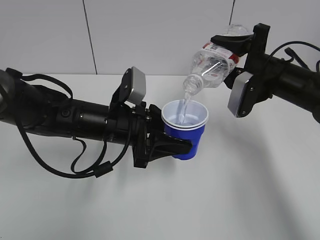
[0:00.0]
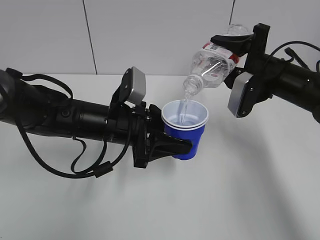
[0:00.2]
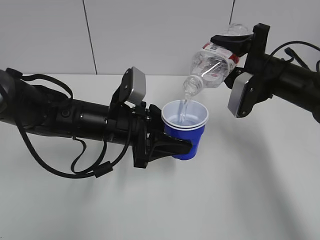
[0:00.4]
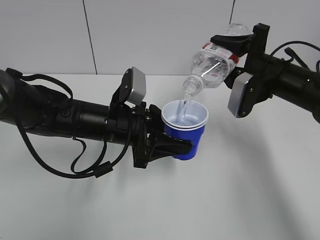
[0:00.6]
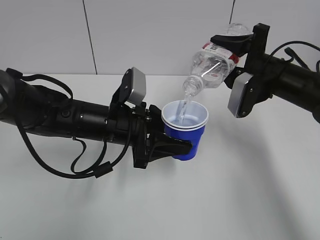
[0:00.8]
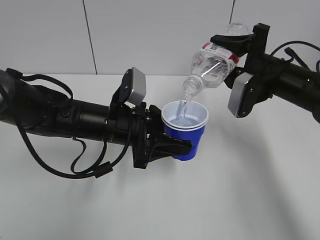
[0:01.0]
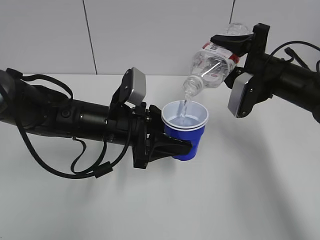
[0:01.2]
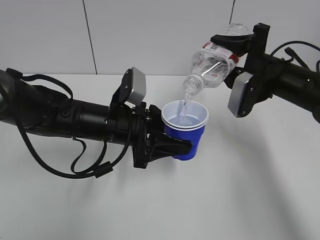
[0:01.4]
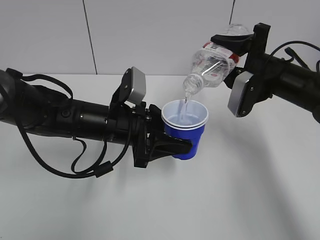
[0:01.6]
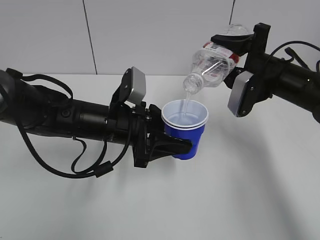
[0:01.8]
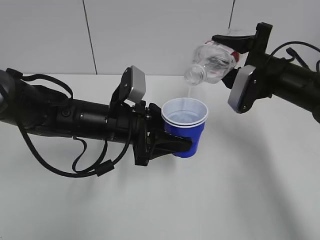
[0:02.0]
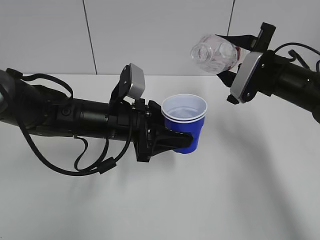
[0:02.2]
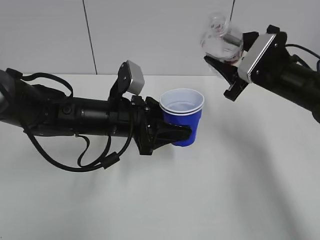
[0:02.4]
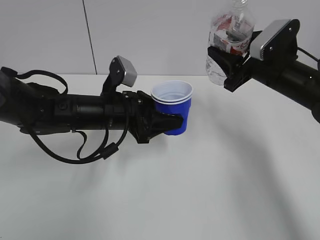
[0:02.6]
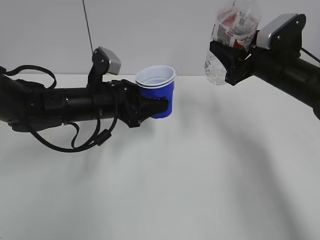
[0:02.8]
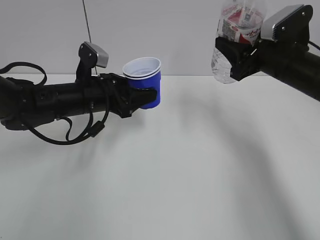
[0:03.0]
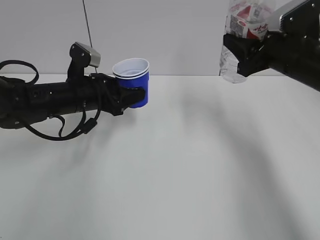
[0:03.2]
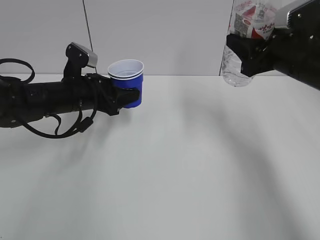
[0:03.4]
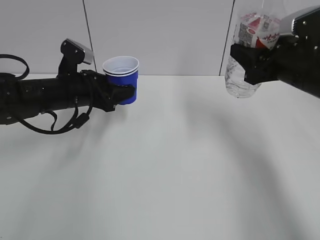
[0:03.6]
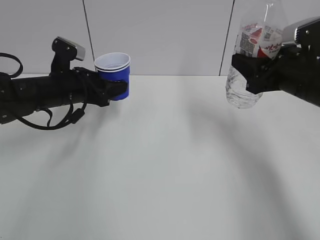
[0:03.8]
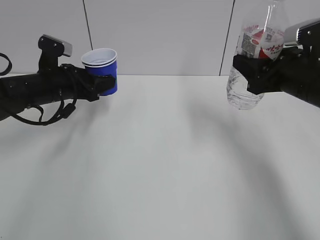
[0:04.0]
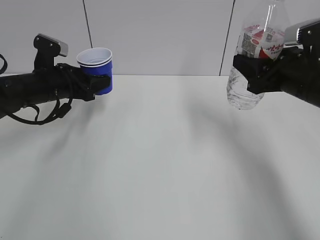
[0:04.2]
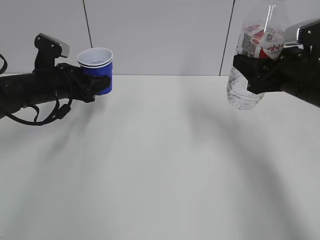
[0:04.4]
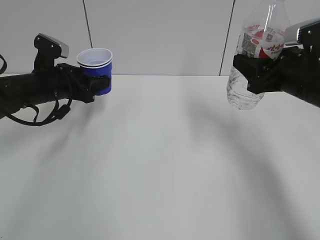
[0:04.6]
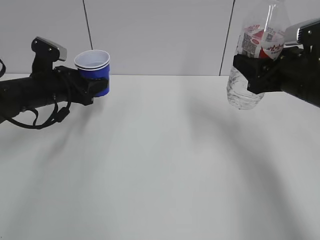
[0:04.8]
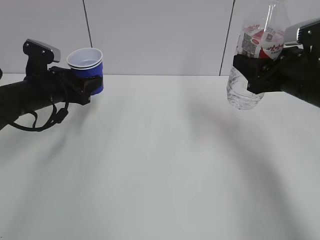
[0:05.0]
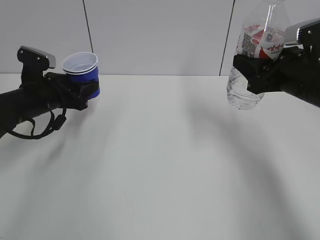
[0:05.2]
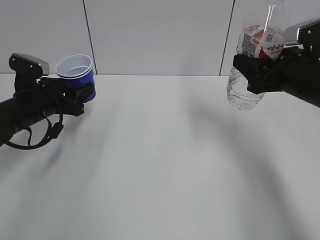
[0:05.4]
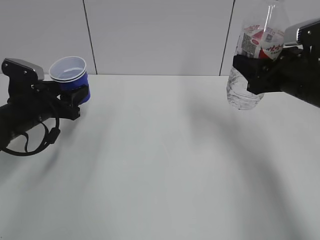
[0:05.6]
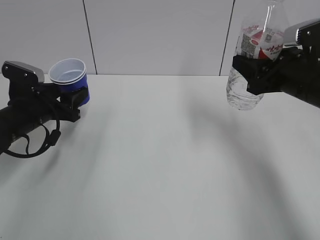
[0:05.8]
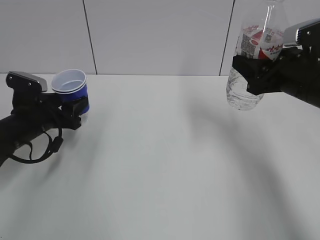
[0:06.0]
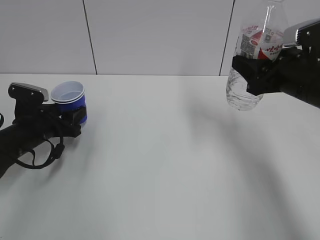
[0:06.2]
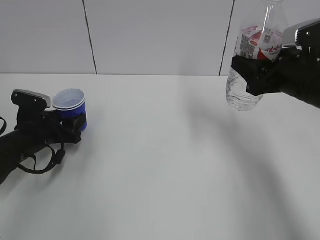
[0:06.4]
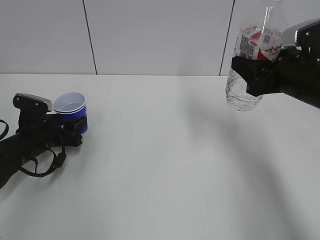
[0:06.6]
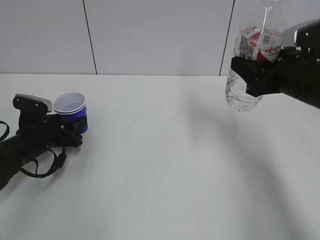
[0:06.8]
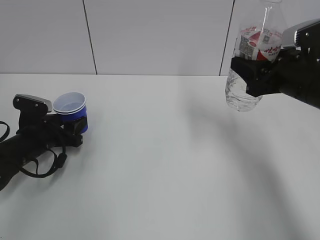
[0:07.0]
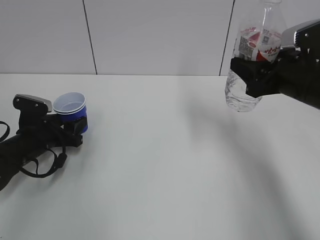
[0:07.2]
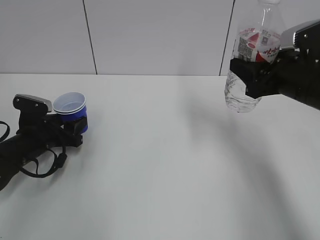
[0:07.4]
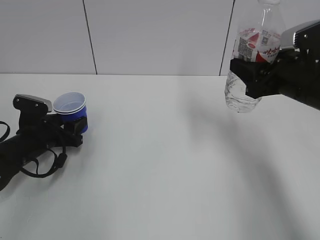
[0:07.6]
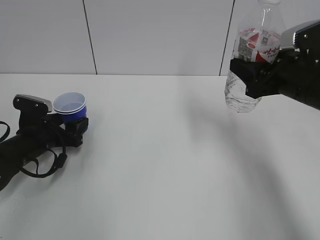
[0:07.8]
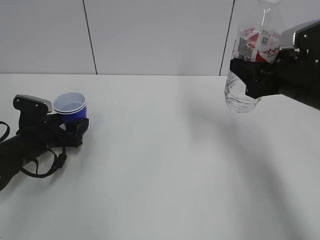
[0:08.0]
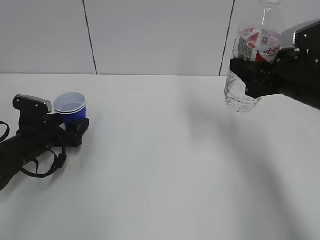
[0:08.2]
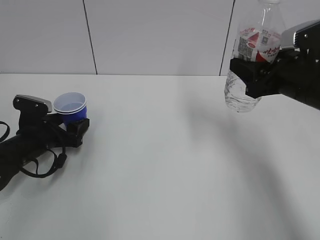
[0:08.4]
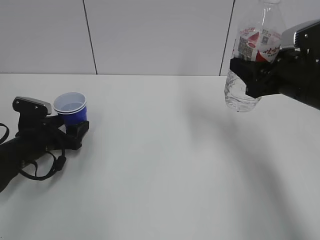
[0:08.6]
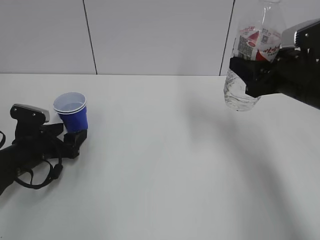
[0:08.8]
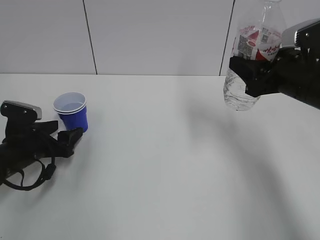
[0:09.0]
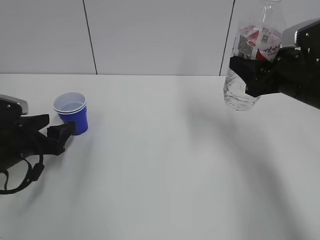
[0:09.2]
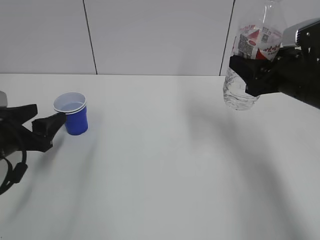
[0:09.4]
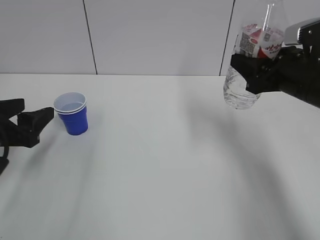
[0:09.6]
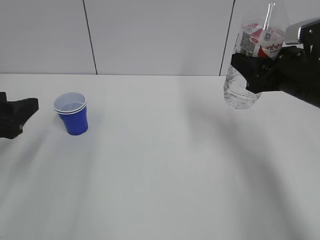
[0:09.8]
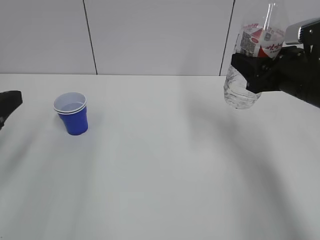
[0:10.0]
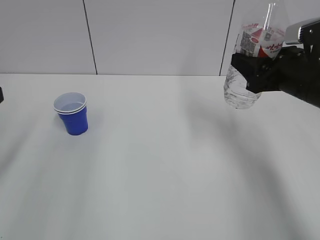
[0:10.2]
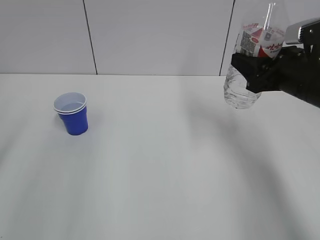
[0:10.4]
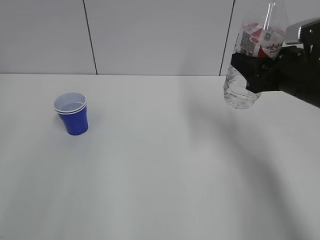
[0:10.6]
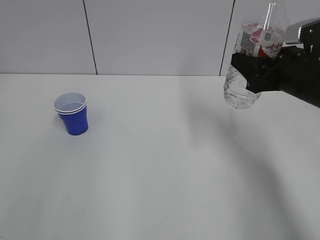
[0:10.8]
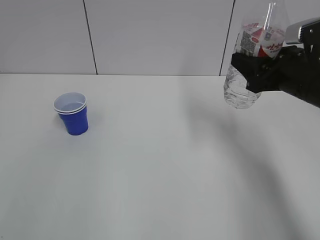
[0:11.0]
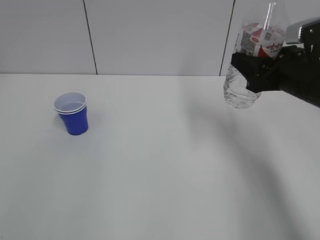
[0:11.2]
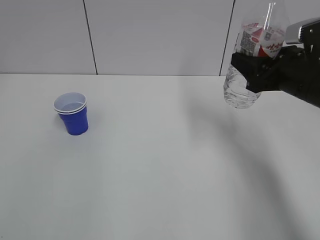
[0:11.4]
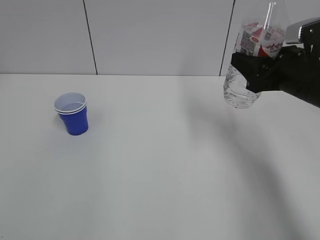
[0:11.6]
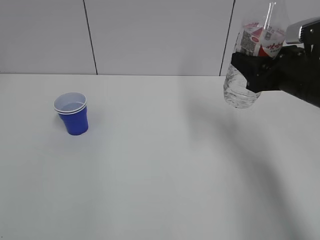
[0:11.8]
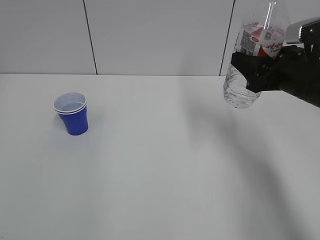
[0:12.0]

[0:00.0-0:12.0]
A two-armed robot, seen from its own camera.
Step, 0:00.0 to 0:02.0: Fill water with the left hand.
Step, 0:02.2 to 0:02.6: Collect water with the right hand.
Step, 0:02.8 to 0:08.2: Place the paper cup with the left hand.
0:00.0 to 0:01.6: Both grippers stay about where they are.
0:01.6 to 0:03.0: The left gripper is displaced forward and to the left by approximately 10 cm.
0:03.0 to 0:04.4: The left gripper travels to the left by some 10 cm. The right gripper moves backward, approximately 5 cm.
0:04.4 to 0:06.0: The left gripper shifts some 5 cm downward.
0:06.0 to 0:07.6: The left gripper moves downward, some 5 cm.
0:07.6 to 0:09.0: The left gripper opens up.
0:09.0 to 0:10.4: The left gripper is displaced upward and backward by approximately 25 cm.

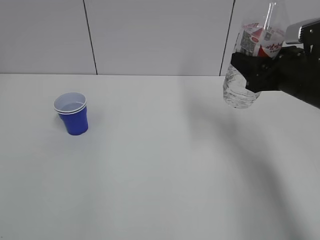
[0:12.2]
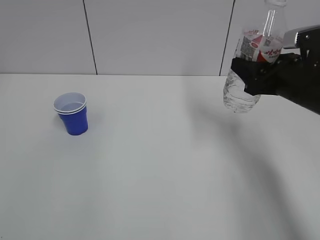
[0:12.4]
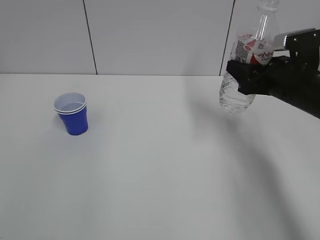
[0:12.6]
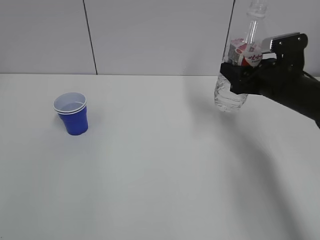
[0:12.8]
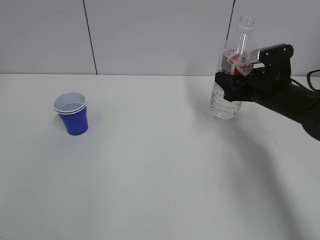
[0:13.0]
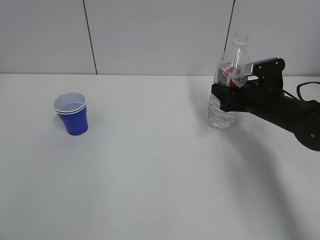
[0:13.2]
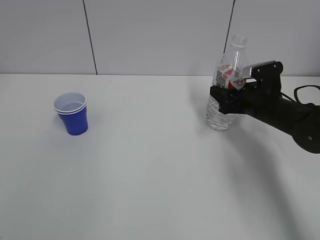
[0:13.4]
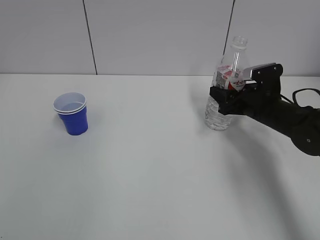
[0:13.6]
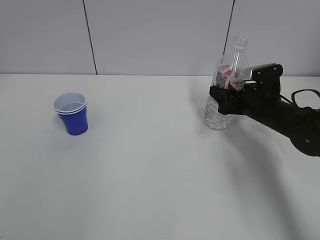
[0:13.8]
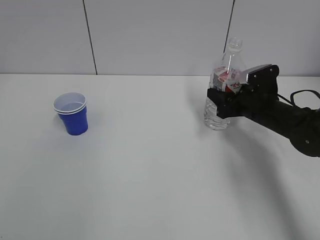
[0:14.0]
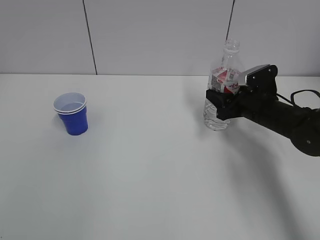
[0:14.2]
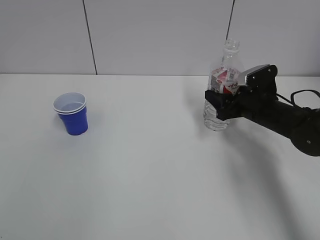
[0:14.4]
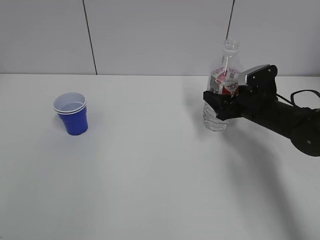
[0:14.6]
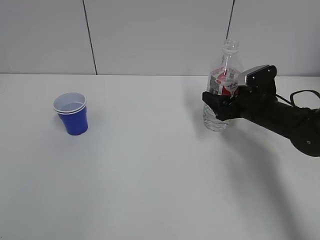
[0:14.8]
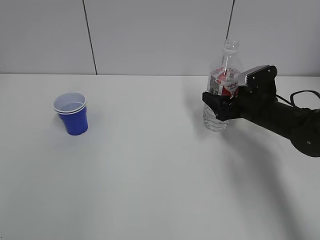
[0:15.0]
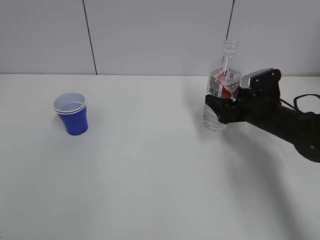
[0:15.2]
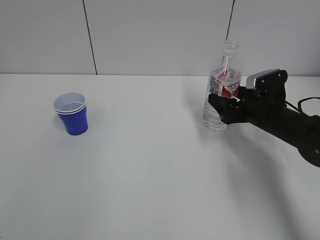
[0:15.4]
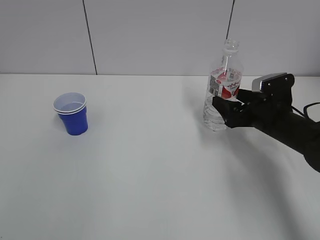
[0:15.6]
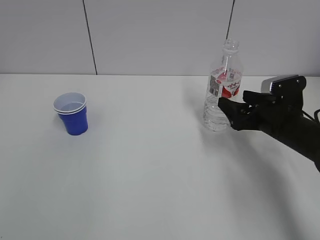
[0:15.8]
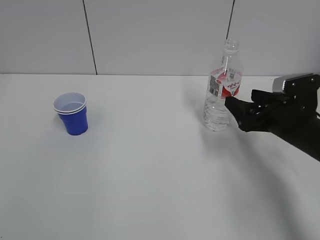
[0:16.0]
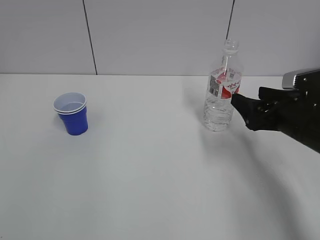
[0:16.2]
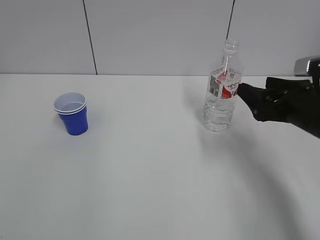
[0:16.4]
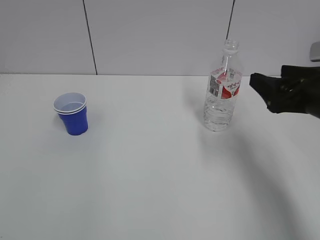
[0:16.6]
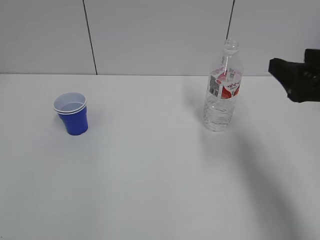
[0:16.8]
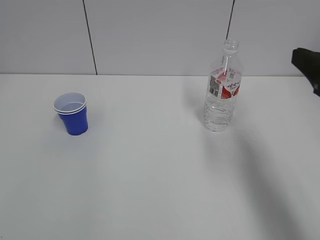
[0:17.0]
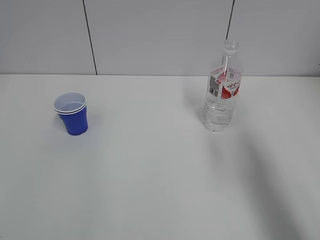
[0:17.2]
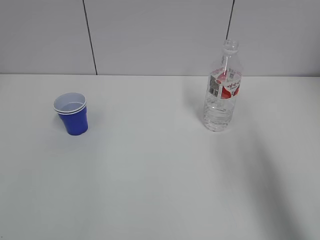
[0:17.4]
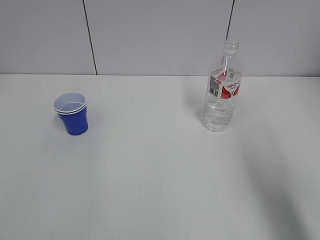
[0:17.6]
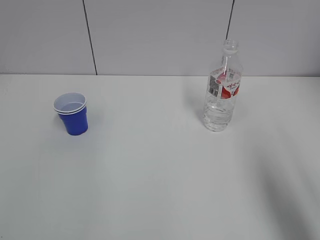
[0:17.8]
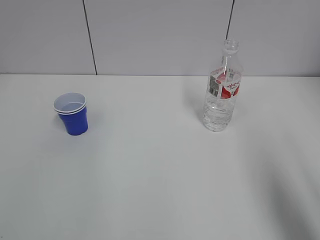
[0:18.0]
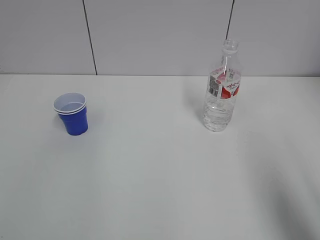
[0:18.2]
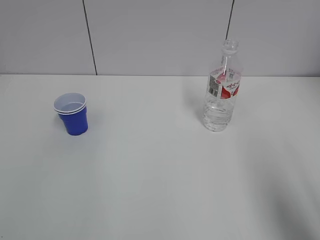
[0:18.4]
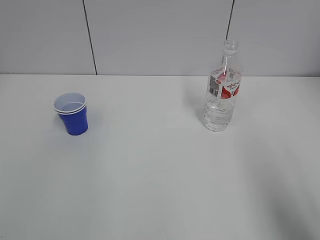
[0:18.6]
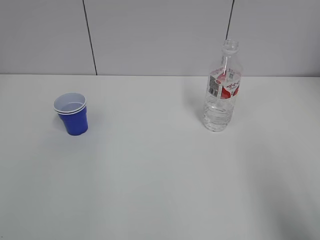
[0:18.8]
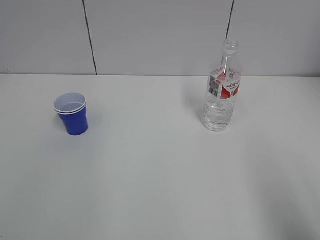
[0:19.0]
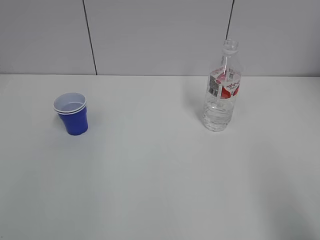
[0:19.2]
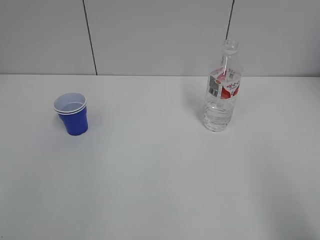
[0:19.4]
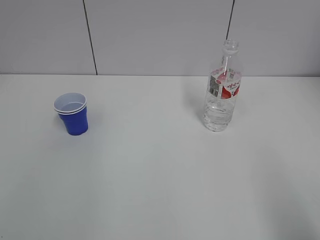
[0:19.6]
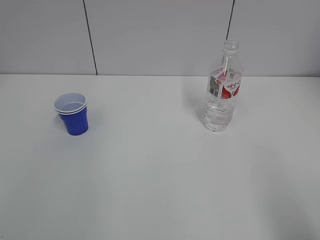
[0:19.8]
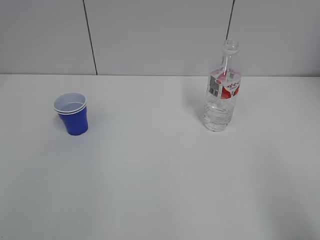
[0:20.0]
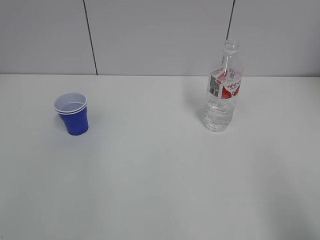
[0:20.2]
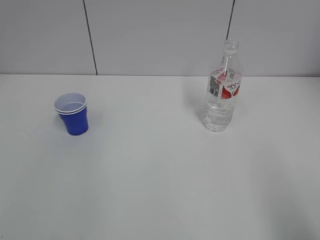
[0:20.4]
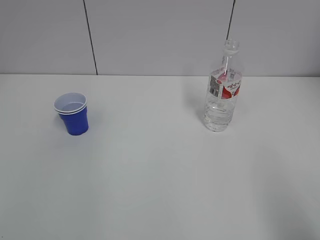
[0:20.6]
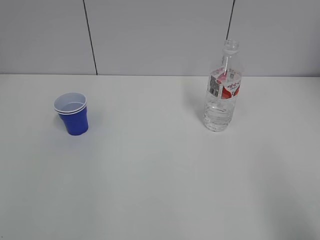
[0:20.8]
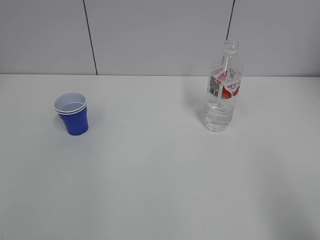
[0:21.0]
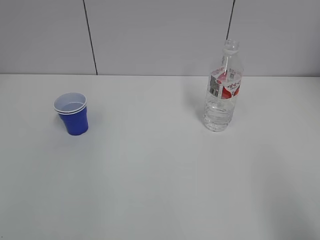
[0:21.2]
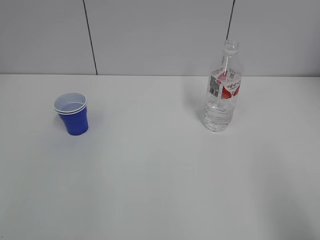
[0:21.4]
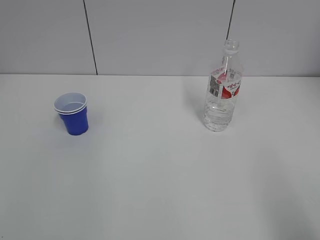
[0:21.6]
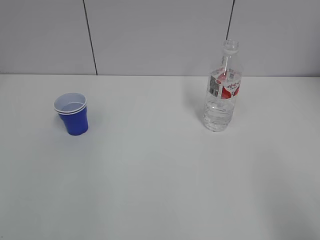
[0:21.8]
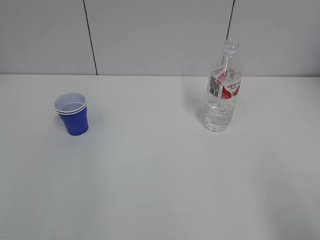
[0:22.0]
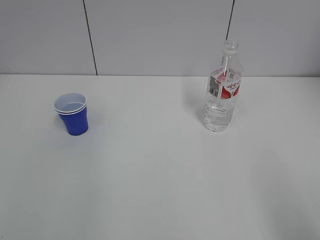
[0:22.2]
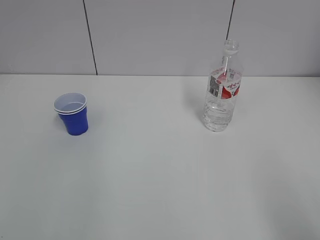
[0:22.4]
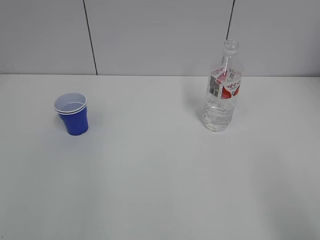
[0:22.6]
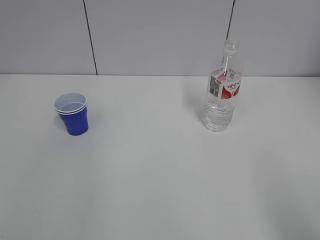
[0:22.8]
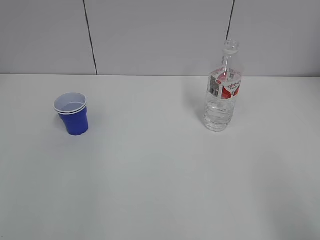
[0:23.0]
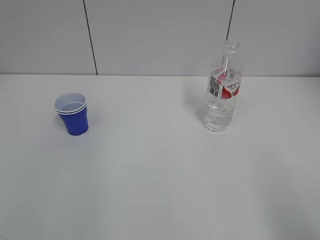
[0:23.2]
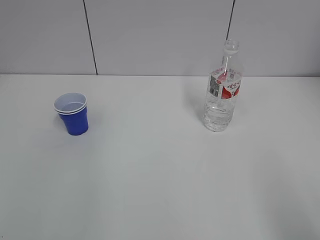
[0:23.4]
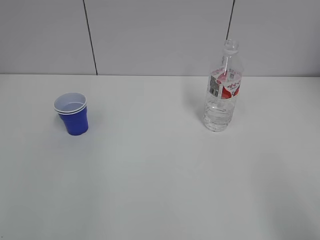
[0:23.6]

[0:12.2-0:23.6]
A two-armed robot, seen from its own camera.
Step, 0:12.2 to 0:15.0: Place the water bottle with the right hand.
0:12.2 to 0:13.6: The right gripper travels downward and forward by some 15 cm.
0:13.6 to 0:15.0: The right gripper opens up.
0:15.0 to 0:16.4: The right gripper shifts approximately 15 cm backward and upward.
0:16.4 to 0:17.8: The right gripper goes some 25 cm backward and upward.
0:17.8 to 0:19.4: The right gripper is displaced backward by some 10 cm.
0:22.2 to 0:23.6: Both grippers stay put.
